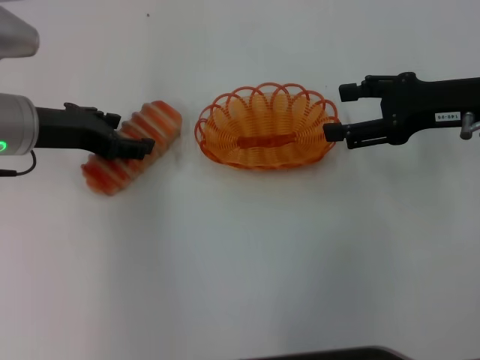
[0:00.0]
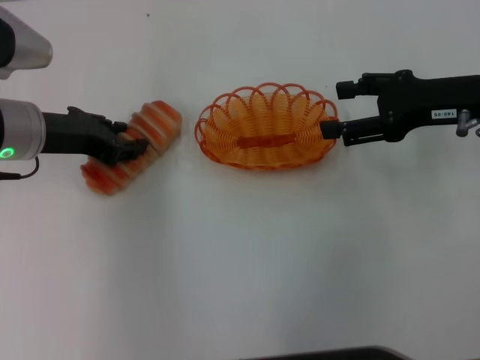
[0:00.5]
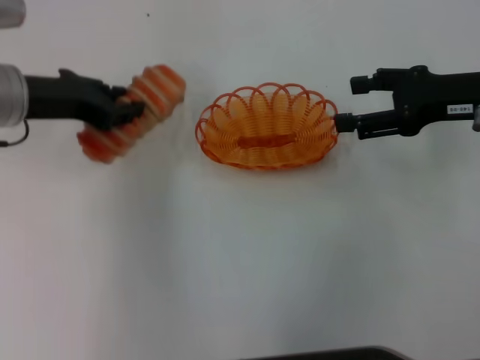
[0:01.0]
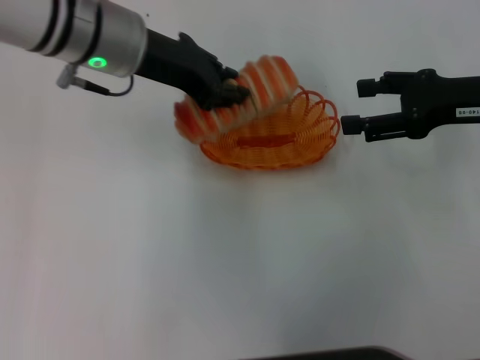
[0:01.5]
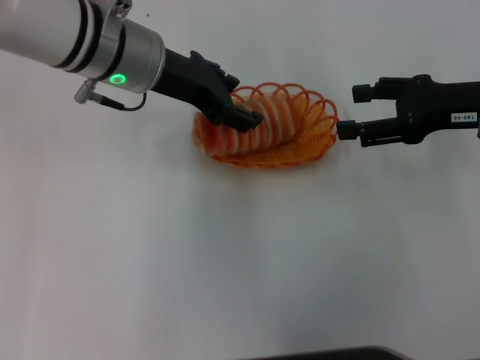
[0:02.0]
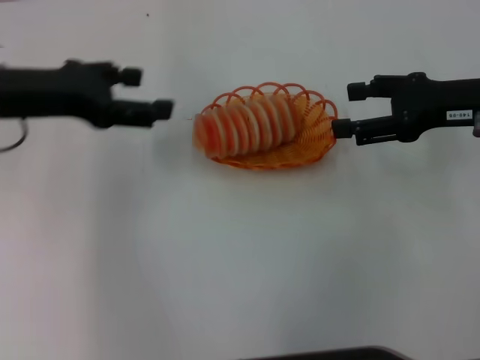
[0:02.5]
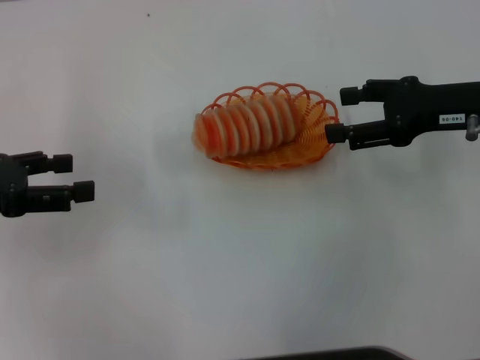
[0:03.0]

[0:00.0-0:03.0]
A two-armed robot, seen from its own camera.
Step, 0:01.5 to 0:02.0: Place the long bread into the basket with the left gripper.
0:00.0 to 0:01.5: The left gripper travels to the right and upward by roughly 10 cm, and closes up.
0:01.5 to 0:03.0: The left gripper heads to the left and backward, covering about 25 cm, and opens.
